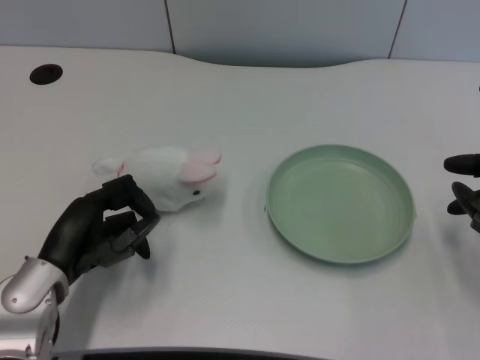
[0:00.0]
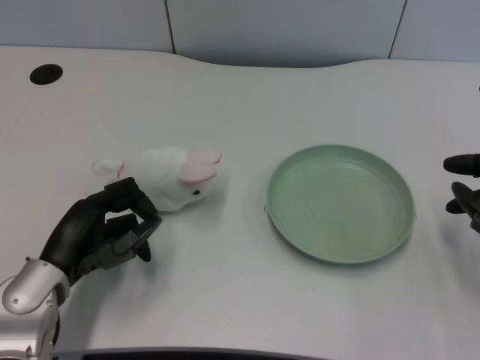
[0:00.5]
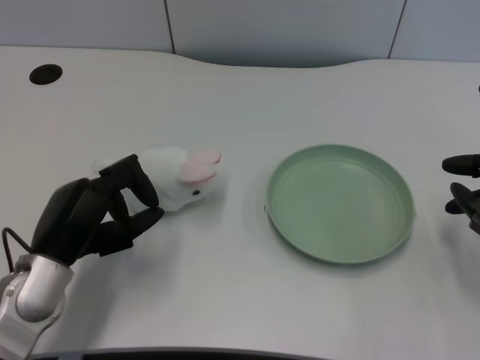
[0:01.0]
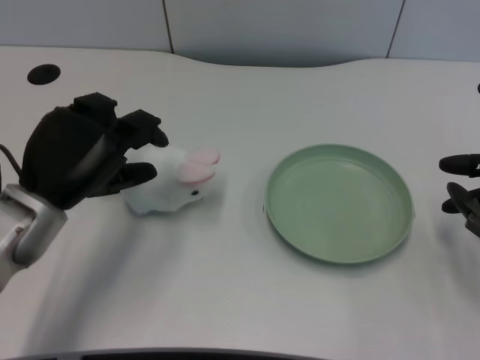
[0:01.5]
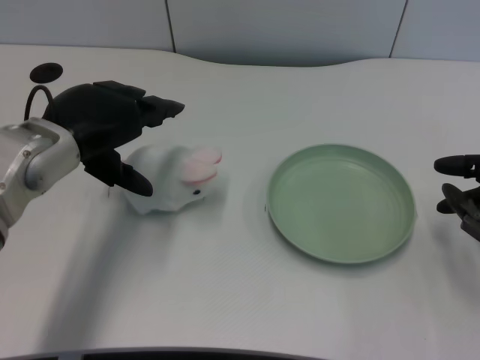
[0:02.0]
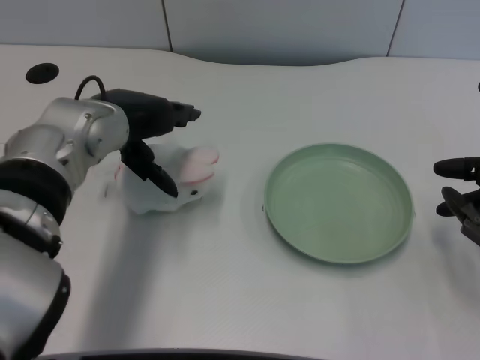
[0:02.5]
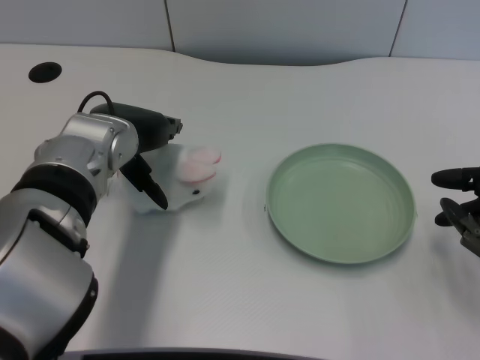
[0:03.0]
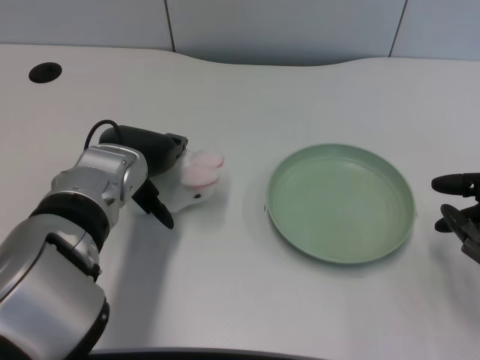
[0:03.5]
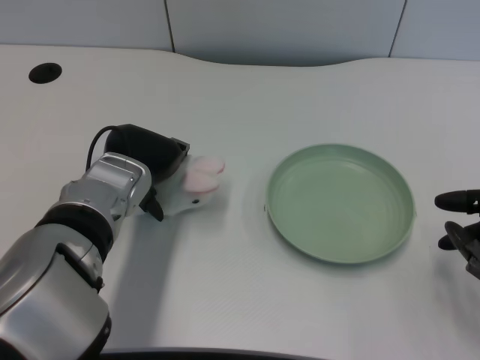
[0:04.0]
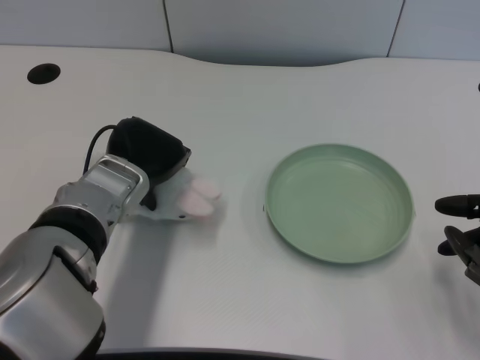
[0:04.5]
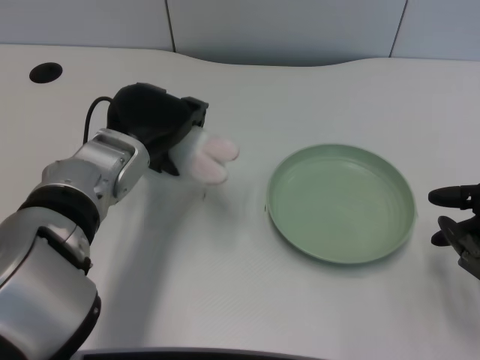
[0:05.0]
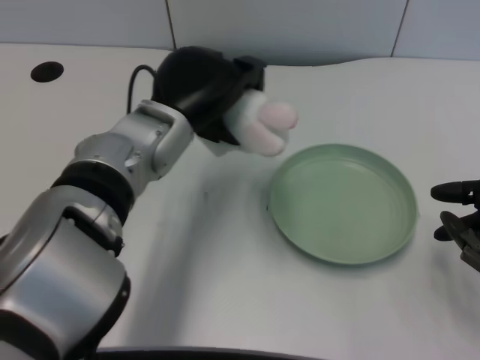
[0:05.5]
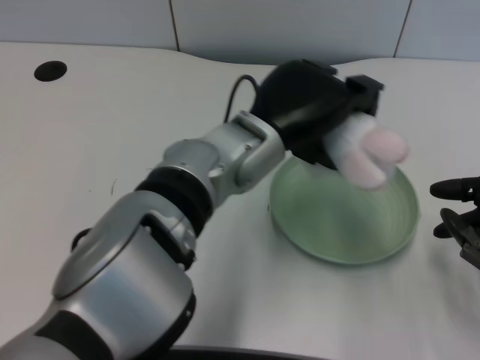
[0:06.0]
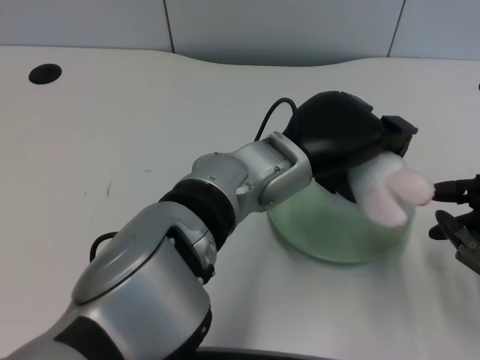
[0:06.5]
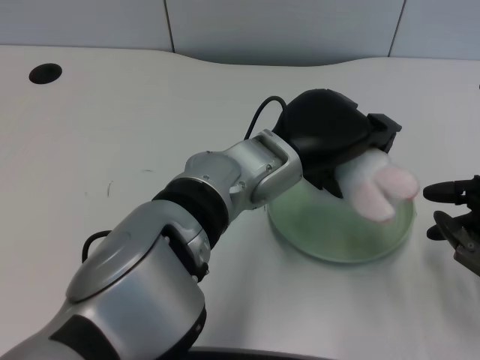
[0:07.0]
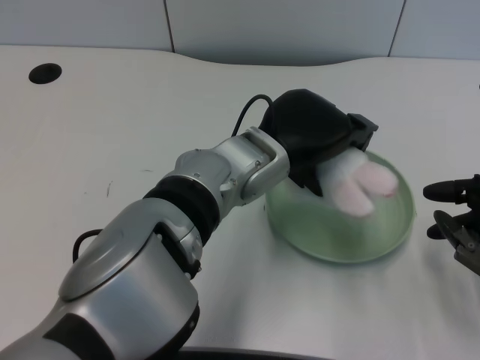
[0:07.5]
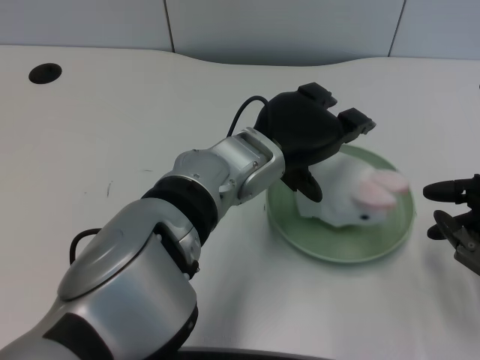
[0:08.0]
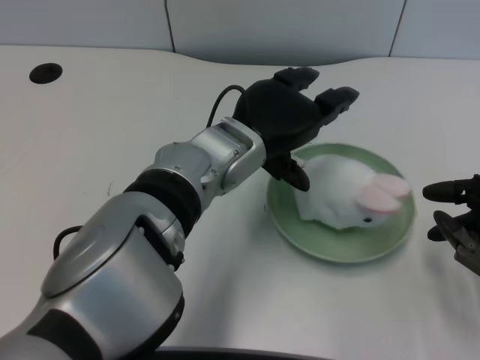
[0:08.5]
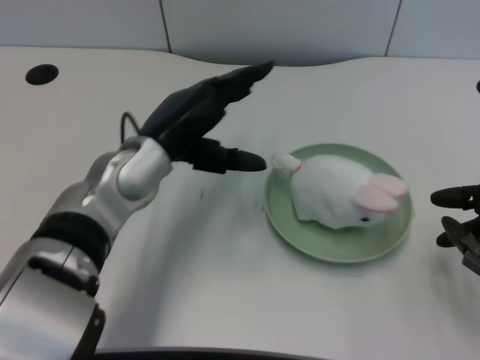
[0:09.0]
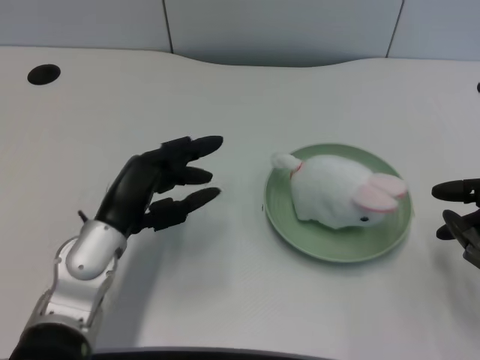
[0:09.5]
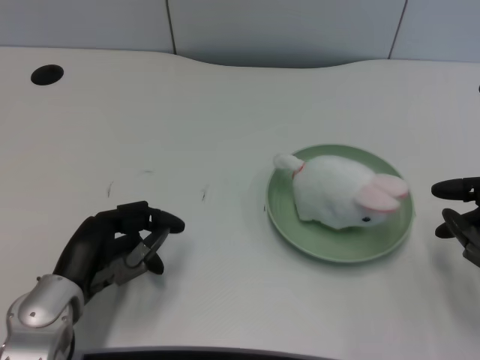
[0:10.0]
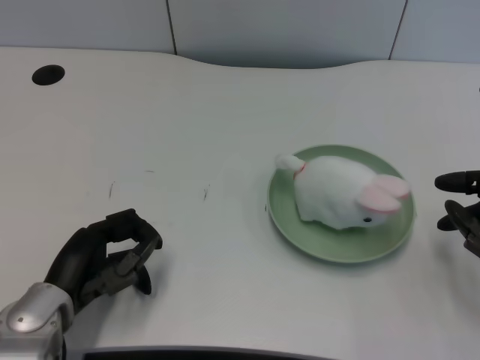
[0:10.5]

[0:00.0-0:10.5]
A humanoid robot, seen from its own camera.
Task of the whole recording: pick up the rabbit doll from the table and place it on the plate.
Step, 0:01.0 to 0:04.5: Grasp the rabbit doll with the left gripper.
Step, 0:05.0 to 0:08.0: Place the rabbit doll into the plate with the left gripper.
0:02.0 to 0:04.0: The left hand travels to the right and downward by some 10 cm.
0:04.0 to 0:06.5: The left hand travels to the right by roughly 15 cm.
0:08.5 to 0:10.5: The left hand moves to the left, downward and backward, approximately 25 cm.

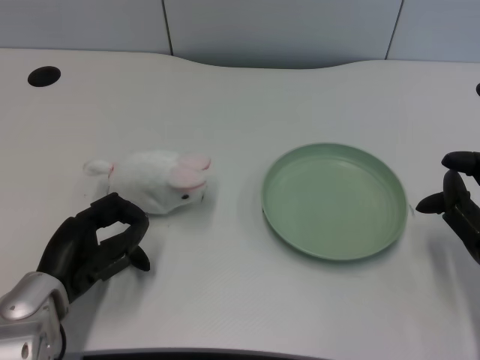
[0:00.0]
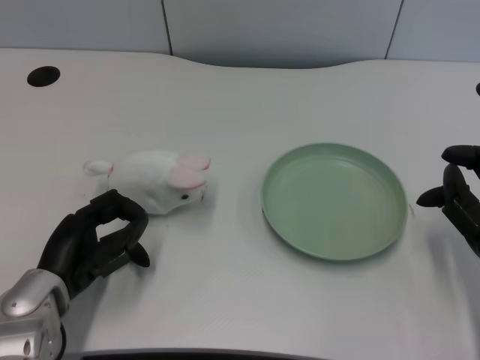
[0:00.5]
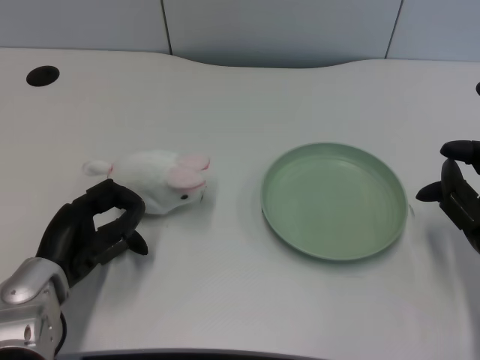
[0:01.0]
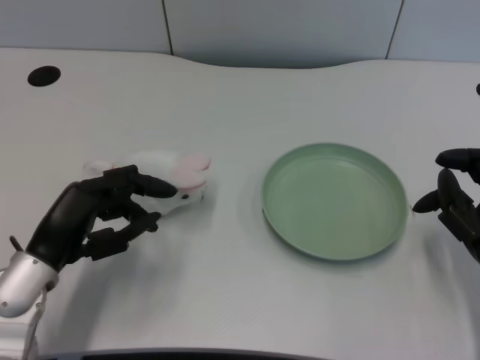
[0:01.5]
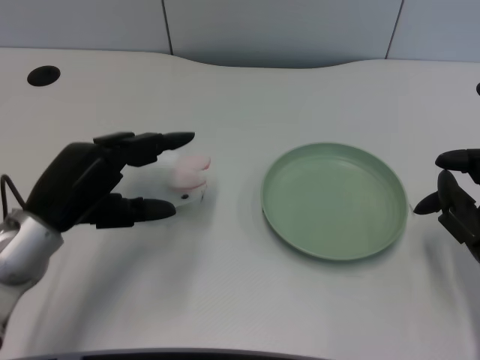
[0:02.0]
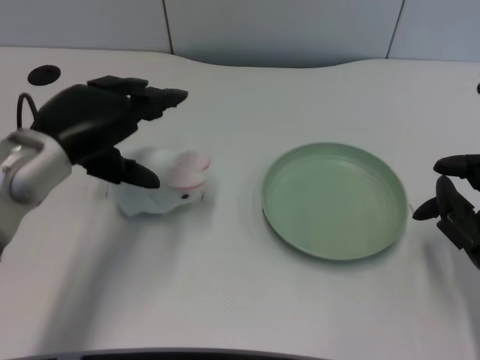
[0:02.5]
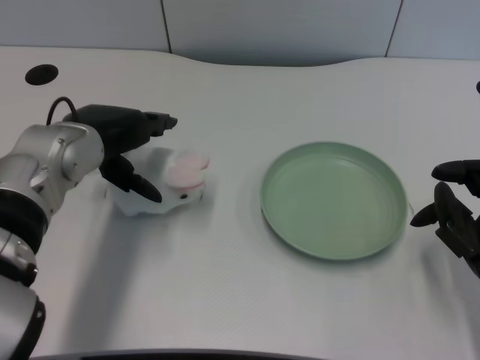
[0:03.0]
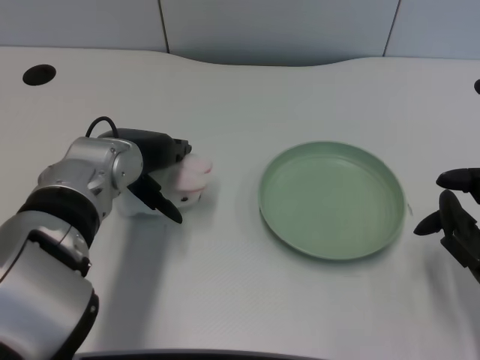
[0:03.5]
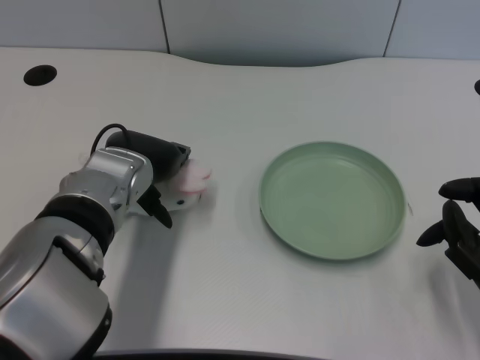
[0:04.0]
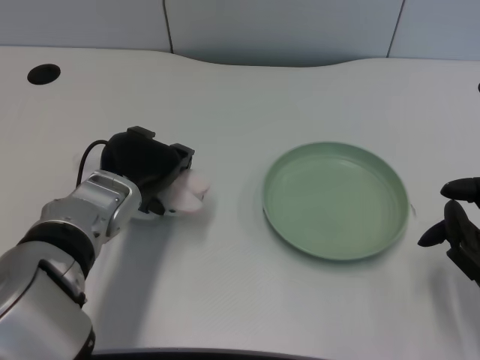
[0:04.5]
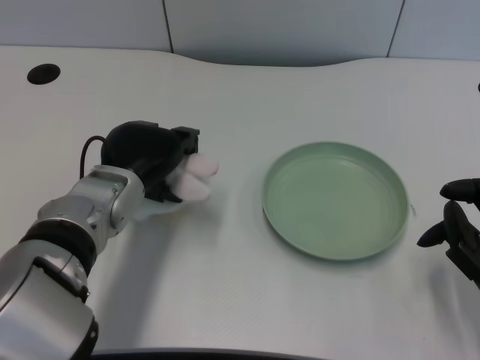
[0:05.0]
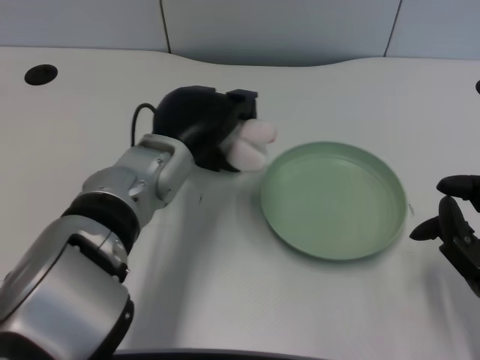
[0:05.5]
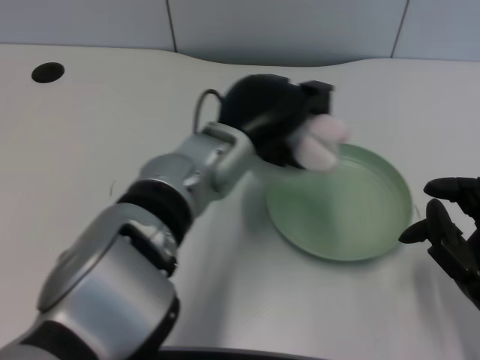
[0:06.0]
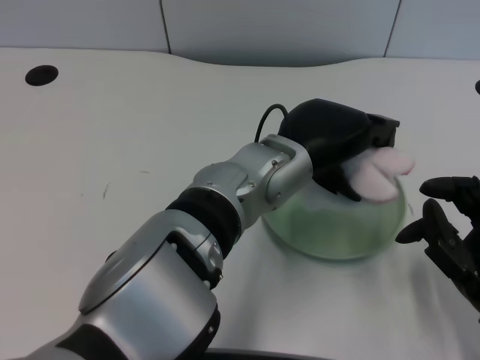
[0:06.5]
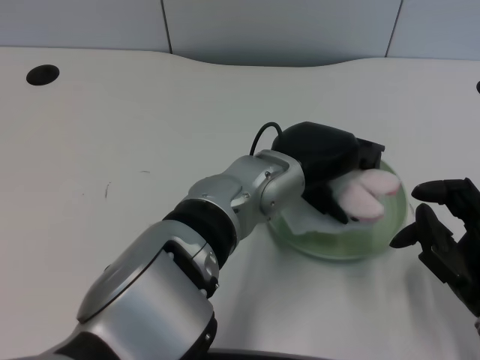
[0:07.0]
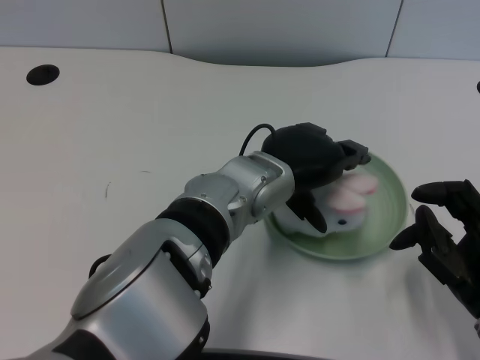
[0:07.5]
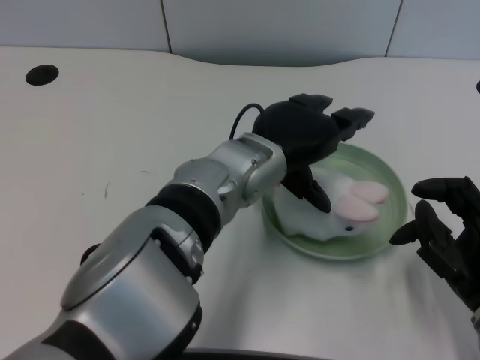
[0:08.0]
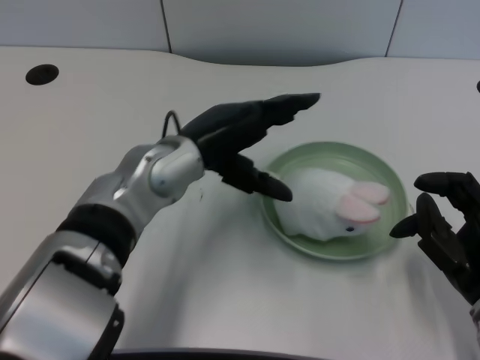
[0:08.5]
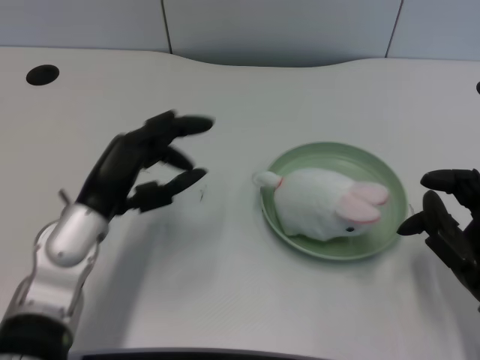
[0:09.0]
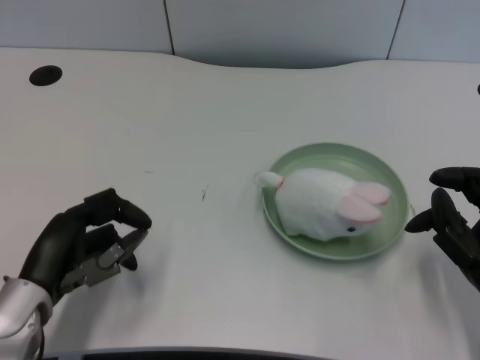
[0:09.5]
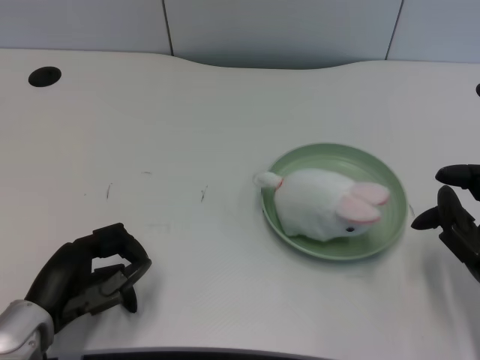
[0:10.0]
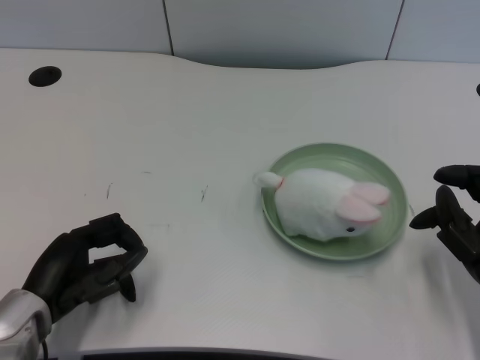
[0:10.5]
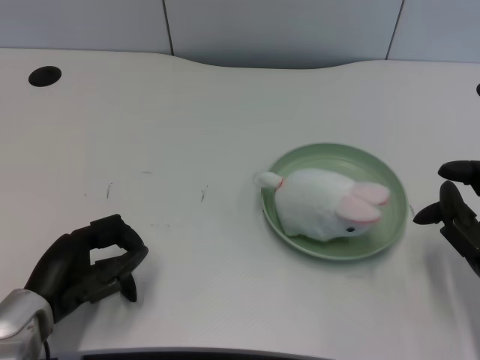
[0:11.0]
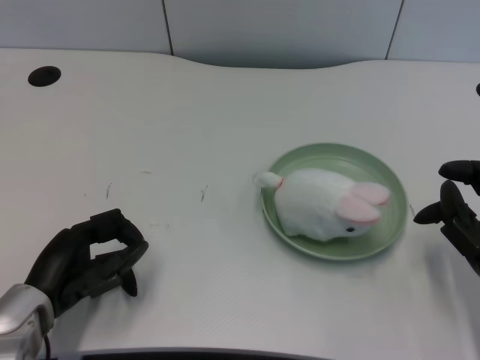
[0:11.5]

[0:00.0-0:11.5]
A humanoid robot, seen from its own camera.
Task of the whole recording: pick up the rabbit doll from the table and place it on the plate.
Step, 0:01.5 to 0:04.5: Grasp the rabbit doll with the left gripper.
Step, 0:05.0 to 0:07.5: Place the rabbit doll into the plate with the left gripper.
0:02.0 to 0:04.0: The left hand moves to the right and forward, some 10 cm.
0:04.0 to 0:06.0: The left hand moves to the right, approximately 10 cm.
0:07.5 to 0:09.5: The left hand heads to the left, covering approximately 25 cm.
0:09.5 to 0:11.5: There are only small adjustments of the hands.
